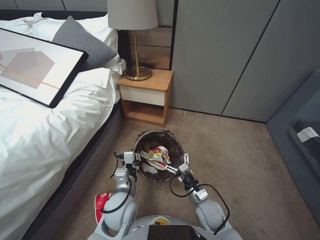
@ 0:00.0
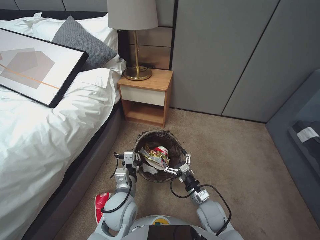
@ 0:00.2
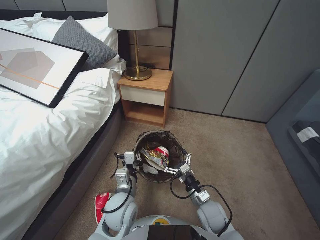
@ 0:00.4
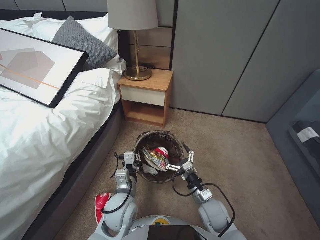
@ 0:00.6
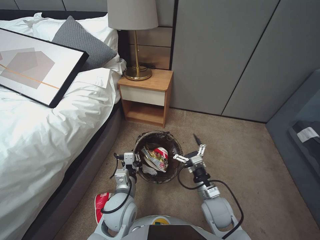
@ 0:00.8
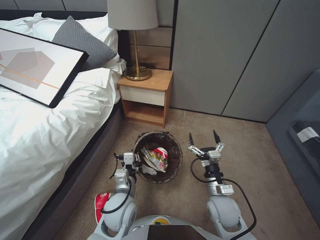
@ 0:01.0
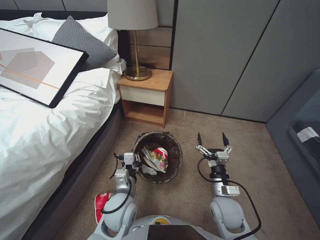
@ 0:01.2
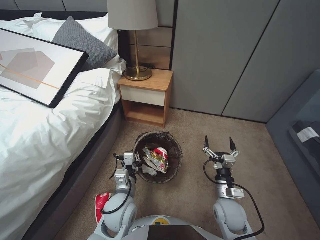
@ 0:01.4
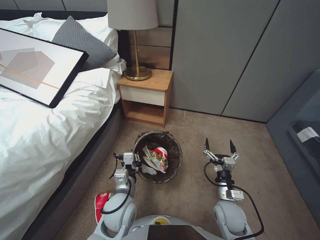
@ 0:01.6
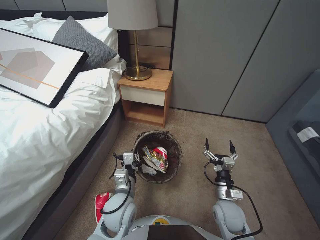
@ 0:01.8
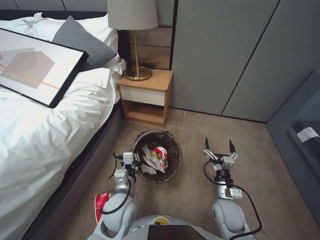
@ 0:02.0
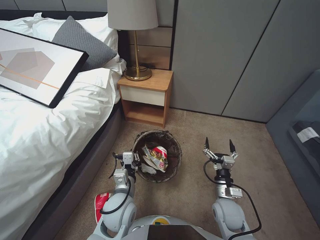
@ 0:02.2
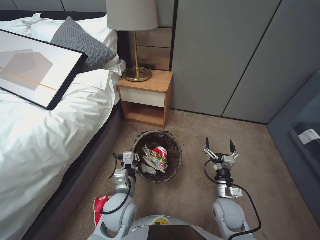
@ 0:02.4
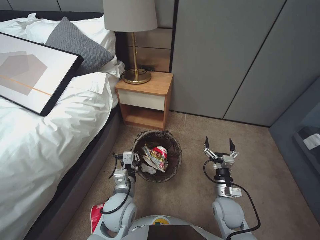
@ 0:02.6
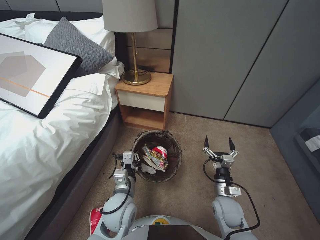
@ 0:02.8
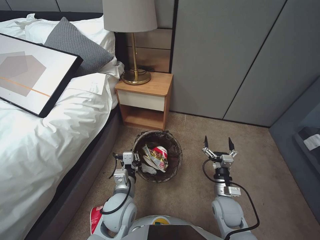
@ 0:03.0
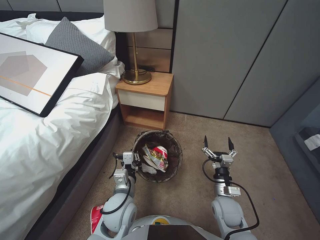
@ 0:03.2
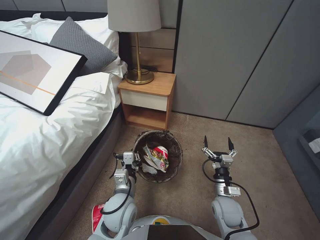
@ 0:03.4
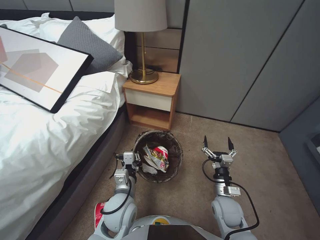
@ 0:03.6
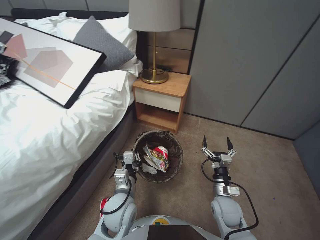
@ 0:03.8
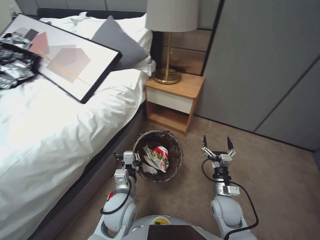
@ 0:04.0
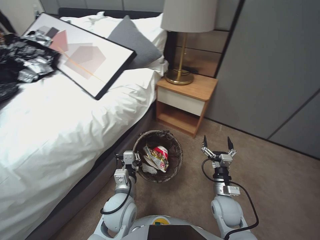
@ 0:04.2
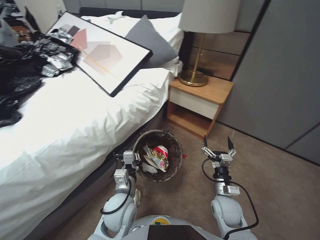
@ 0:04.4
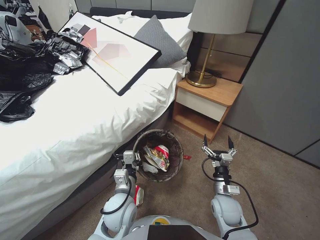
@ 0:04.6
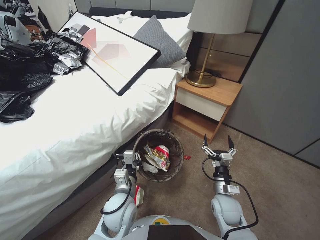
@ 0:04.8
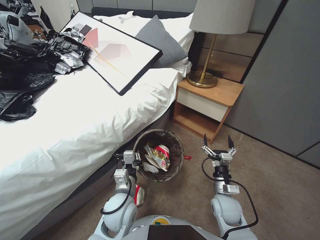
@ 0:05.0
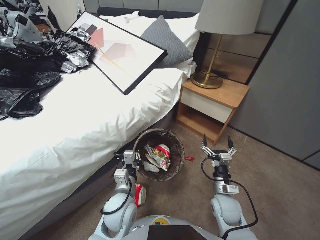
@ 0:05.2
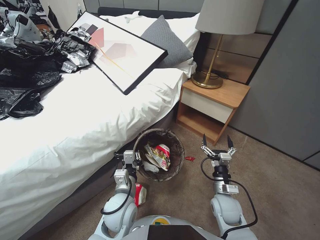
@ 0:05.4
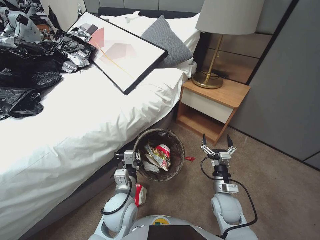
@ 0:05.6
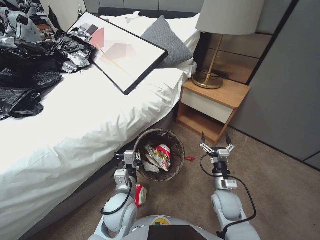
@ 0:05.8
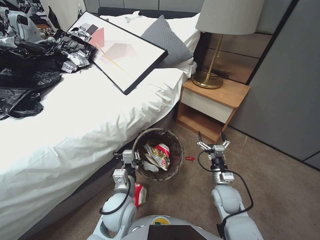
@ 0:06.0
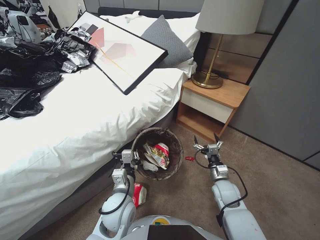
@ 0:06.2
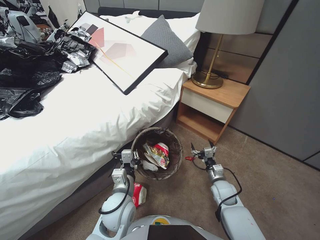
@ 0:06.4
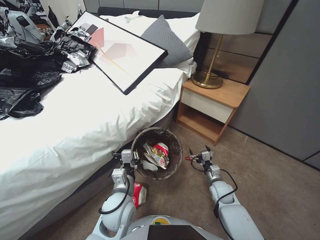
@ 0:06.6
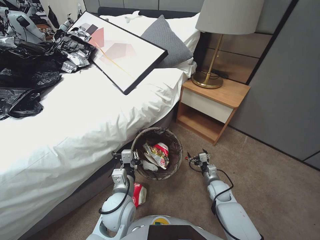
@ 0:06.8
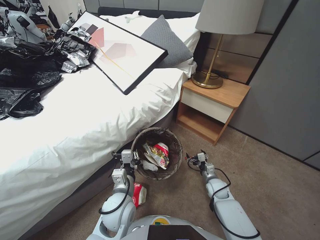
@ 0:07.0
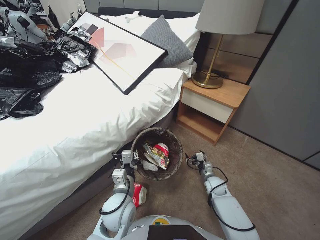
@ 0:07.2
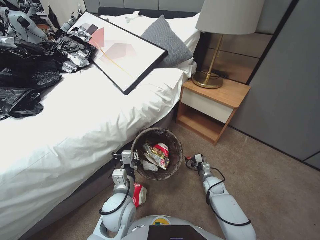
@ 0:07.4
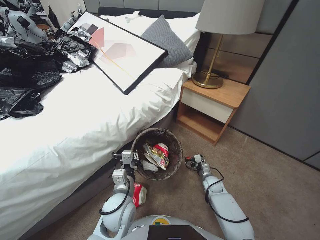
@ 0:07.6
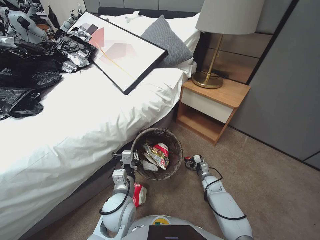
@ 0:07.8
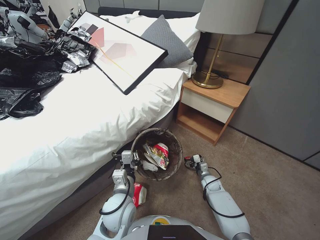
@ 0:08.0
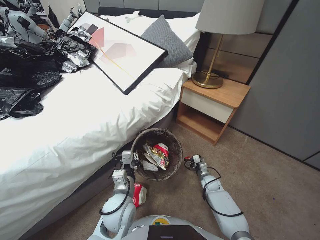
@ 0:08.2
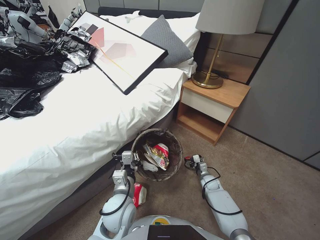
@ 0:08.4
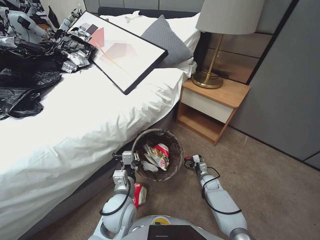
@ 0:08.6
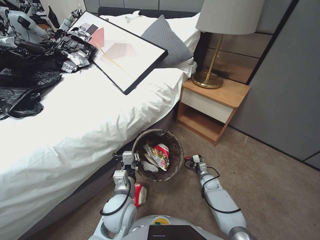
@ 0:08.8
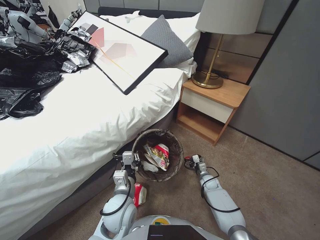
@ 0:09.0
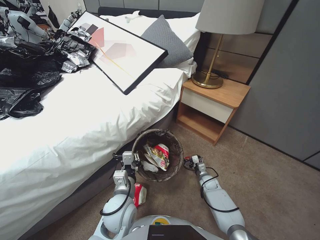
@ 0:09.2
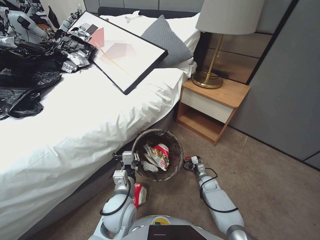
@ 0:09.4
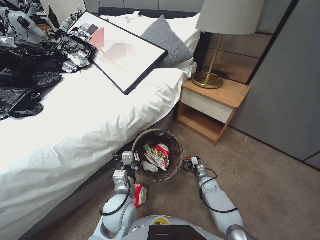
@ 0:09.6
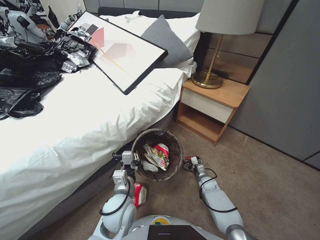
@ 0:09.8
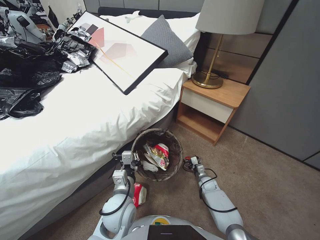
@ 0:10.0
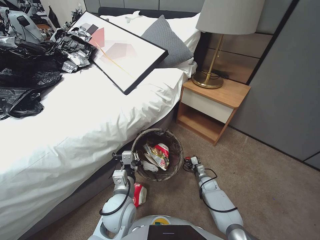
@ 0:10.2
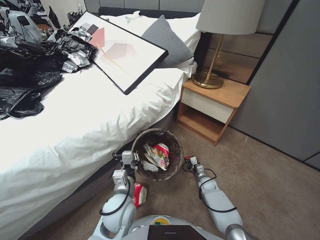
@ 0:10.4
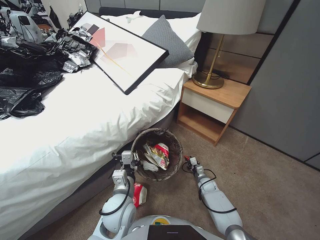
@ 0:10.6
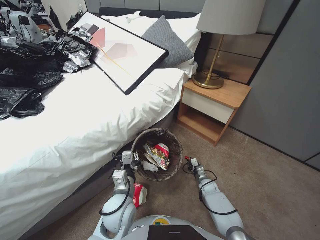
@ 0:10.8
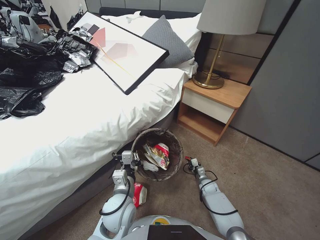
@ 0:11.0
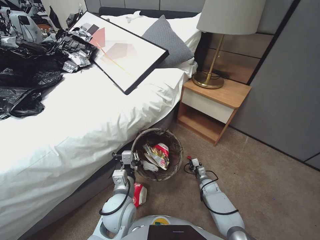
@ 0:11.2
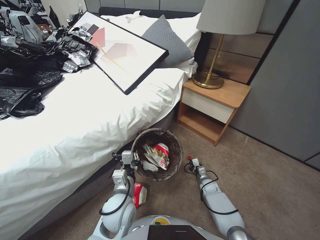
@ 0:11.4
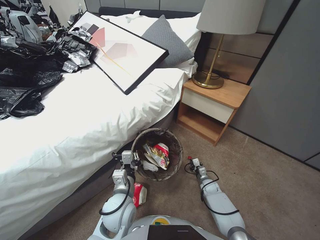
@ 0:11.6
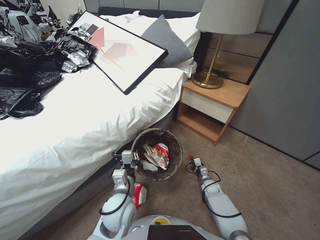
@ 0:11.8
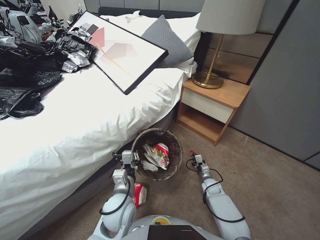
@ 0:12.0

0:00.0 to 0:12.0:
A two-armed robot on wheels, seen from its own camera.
Task of the whole recording: Pick up the trash bin, then pick up the garbage from the floor and place it into the trash bin.
0:00.0 to 0:01.6: The right gripper moves to the right, approximately 5 cm.
0:01.6 to 0:03.0: The grippers move only a little.
0:06.0 to 0:07.6: The right gripper moves downward and forward, roughly 15 cm.
0:07.6 to 0:10.4: There are only small adjustments of the grippers.
0:10.4 to 0:12.0: The right gripper closes its fingers.

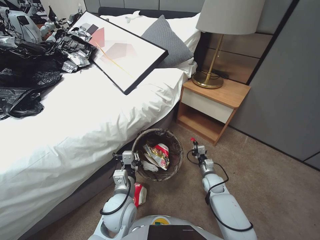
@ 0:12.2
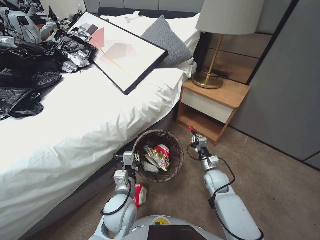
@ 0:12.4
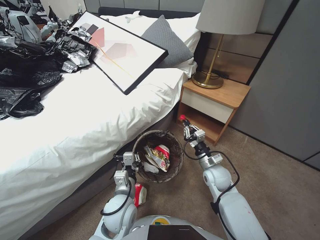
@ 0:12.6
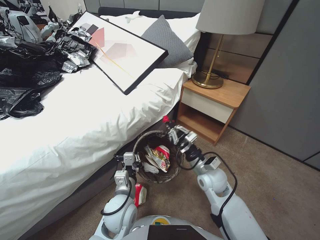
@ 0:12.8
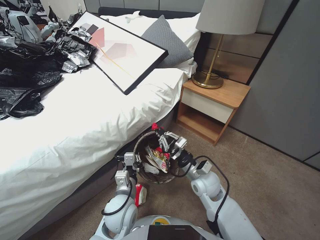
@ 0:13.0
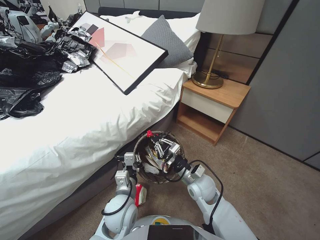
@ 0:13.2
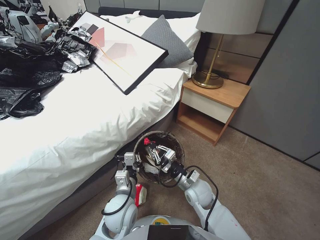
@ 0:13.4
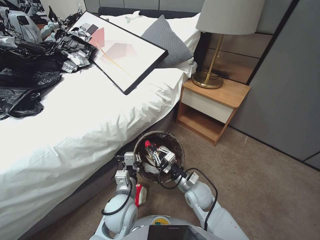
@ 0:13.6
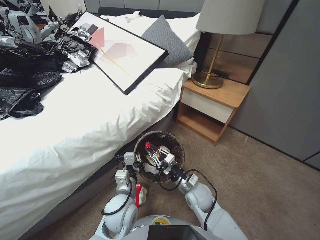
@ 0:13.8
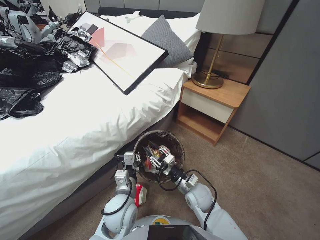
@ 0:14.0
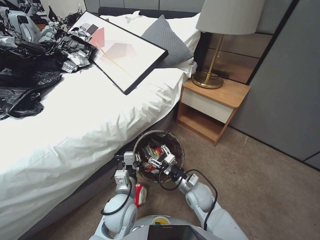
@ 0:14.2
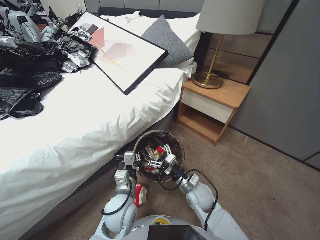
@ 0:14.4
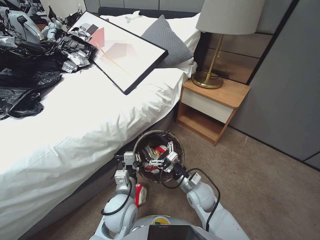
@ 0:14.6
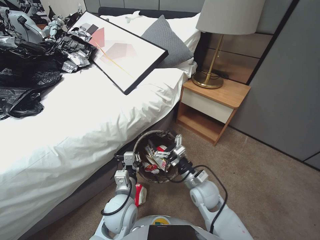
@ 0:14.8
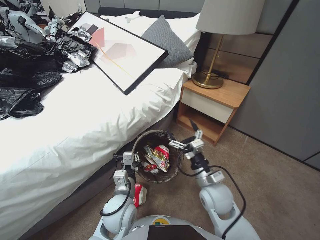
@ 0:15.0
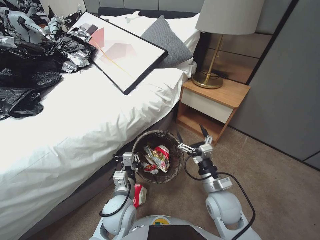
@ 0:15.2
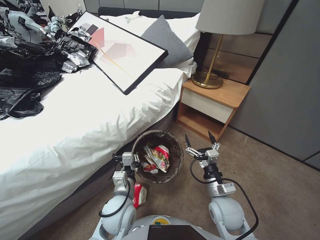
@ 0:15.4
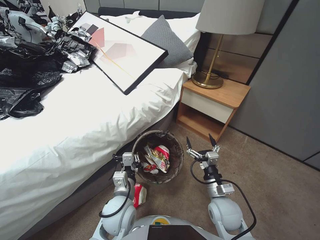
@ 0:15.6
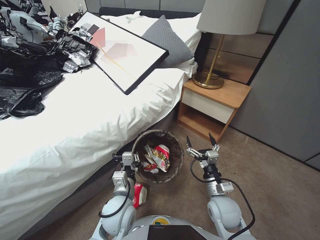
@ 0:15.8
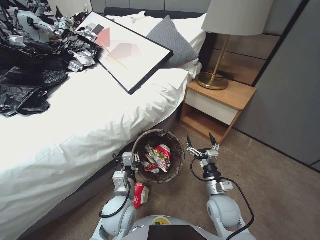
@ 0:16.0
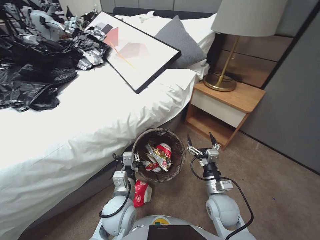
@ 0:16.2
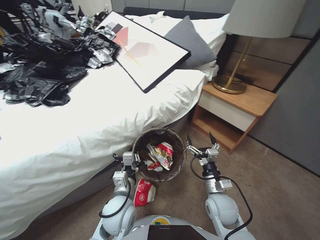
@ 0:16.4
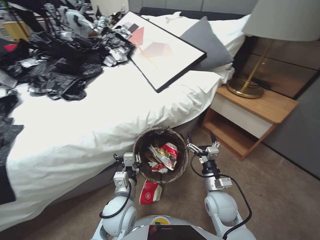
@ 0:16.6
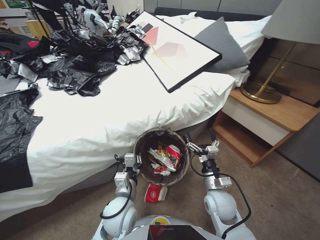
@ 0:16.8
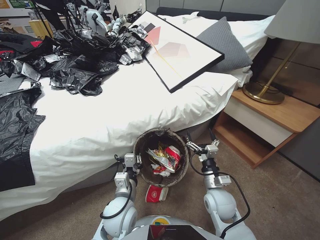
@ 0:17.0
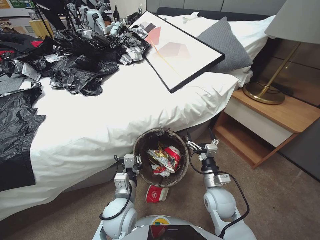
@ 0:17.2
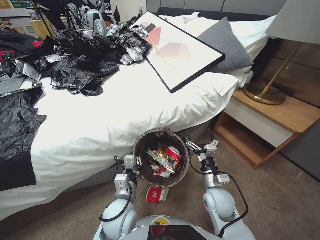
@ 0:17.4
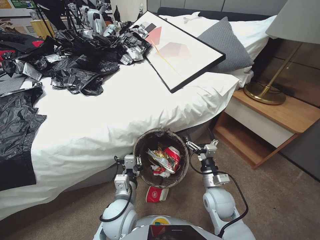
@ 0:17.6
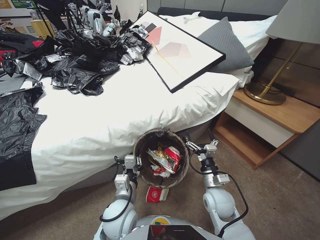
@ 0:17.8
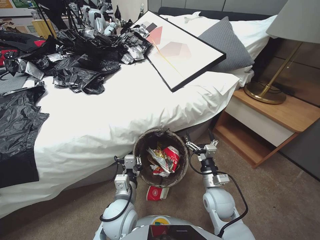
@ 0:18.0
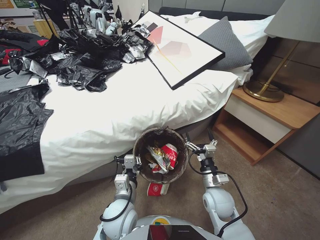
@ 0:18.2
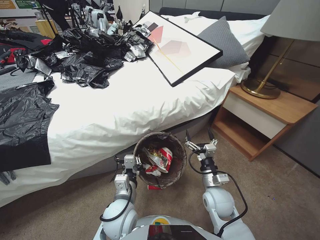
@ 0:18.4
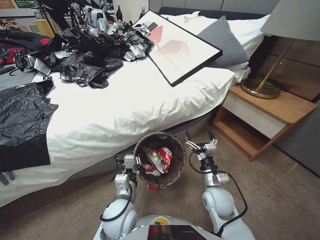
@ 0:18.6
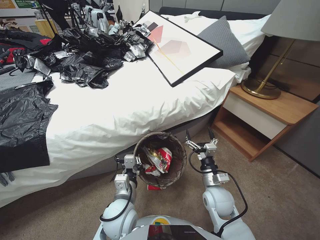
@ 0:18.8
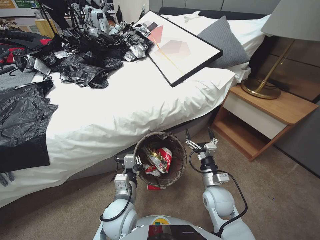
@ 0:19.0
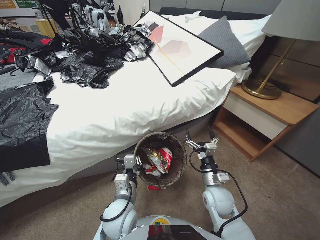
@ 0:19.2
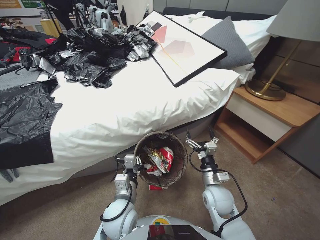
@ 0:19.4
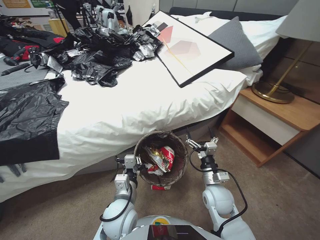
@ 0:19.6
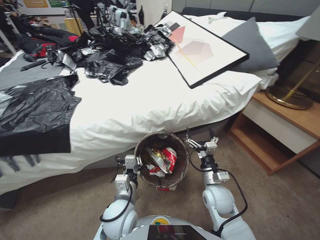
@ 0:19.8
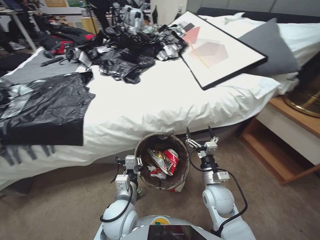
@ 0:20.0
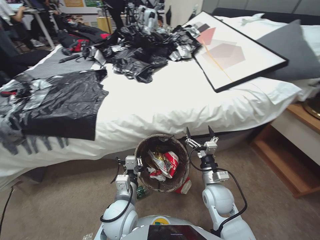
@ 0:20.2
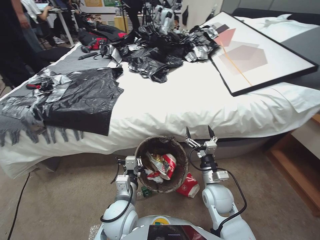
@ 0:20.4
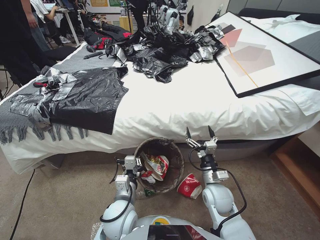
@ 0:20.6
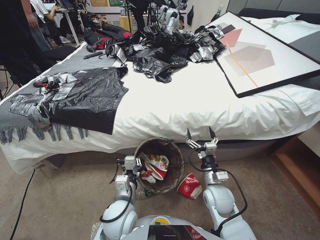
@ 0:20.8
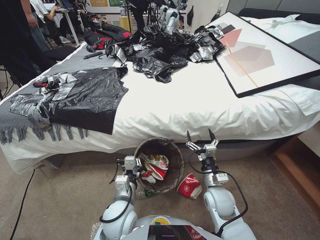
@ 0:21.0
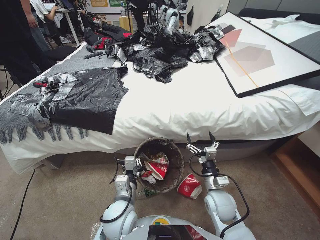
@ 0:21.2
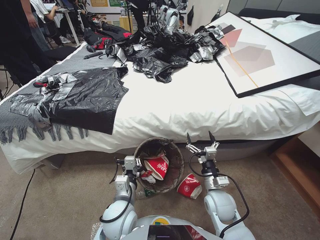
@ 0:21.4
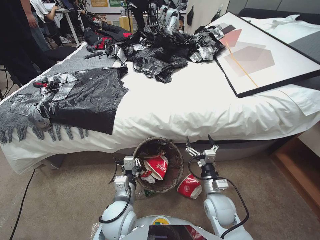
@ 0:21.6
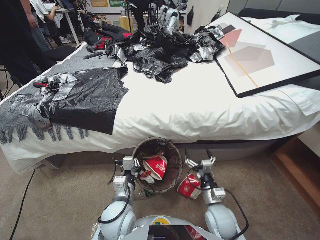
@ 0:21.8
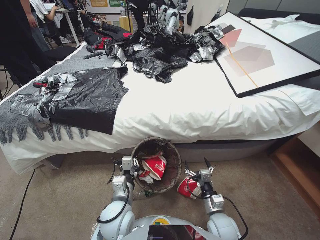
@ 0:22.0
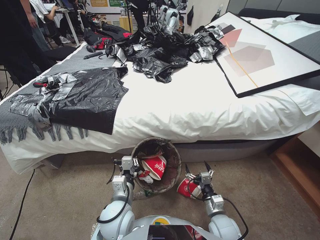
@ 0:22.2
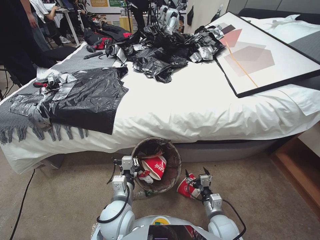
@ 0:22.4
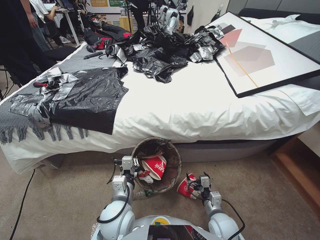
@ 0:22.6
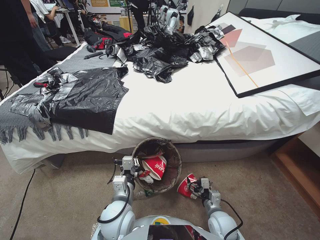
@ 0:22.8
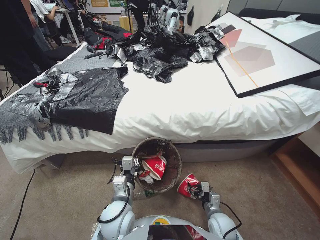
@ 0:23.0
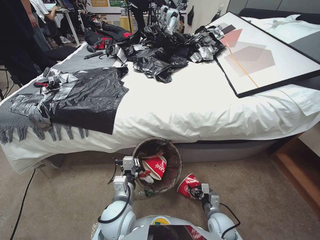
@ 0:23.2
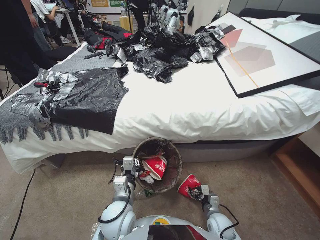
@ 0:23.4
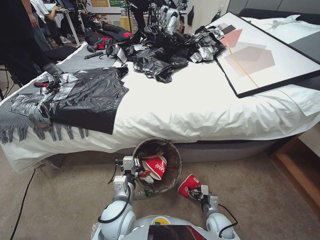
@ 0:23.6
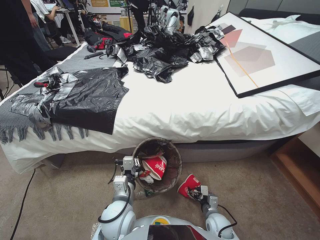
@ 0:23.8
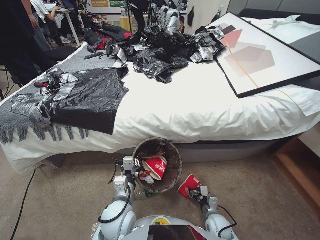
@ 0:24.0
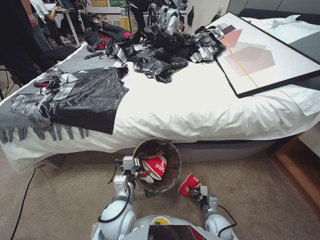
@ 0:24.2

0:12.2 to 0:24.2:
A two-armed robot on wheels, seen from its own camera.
Task of the whole recording: Pick up the trash bin, then pick up the garbage from the floor and place it into the trash bin.
0:12.2 to 0:13.8: The right gripper moves upward, to the left and backward, some 20 cm.
0:13.8 to 0:15.2: The right gripper heads upward and to the right, covering approximately 10 cm, and opens up.
0:21.2 to 0:22.6: The right gripper heads downward and backward, covering roughly 15 cm.
0:22.6 to 0:24.2: The right gripper travels downward by roughly 10 cm.
